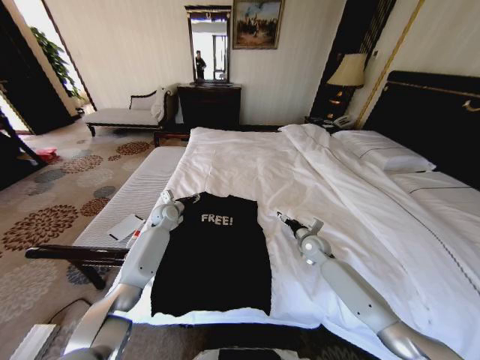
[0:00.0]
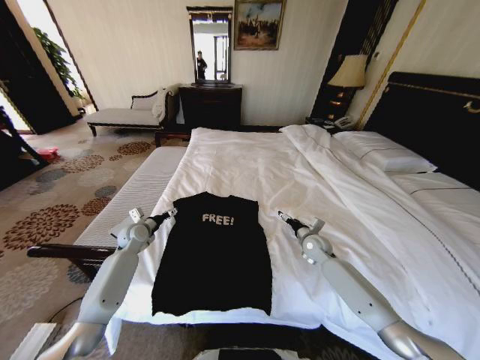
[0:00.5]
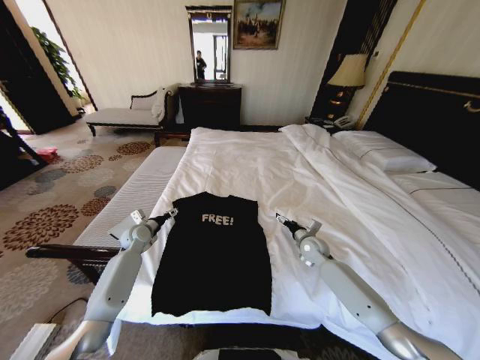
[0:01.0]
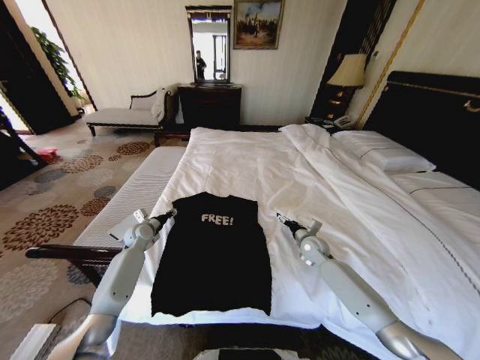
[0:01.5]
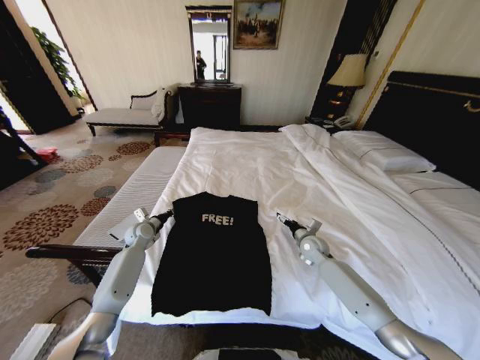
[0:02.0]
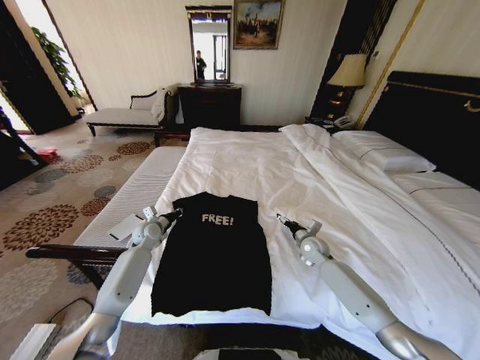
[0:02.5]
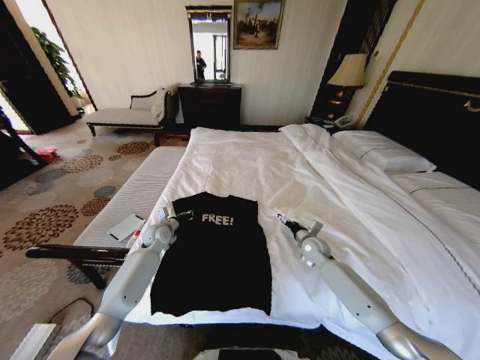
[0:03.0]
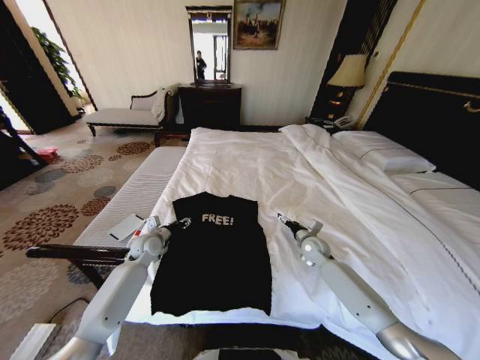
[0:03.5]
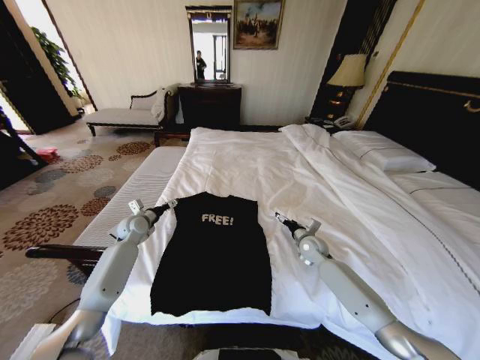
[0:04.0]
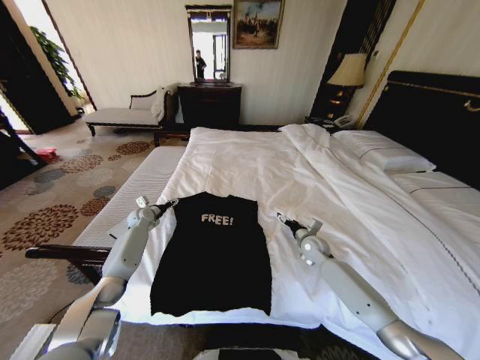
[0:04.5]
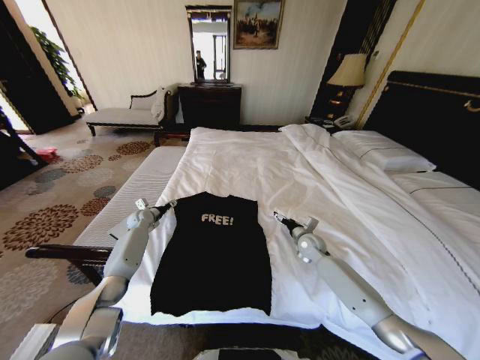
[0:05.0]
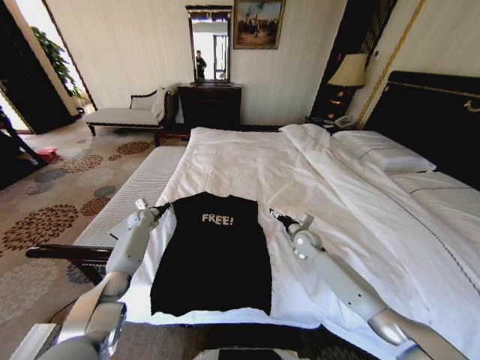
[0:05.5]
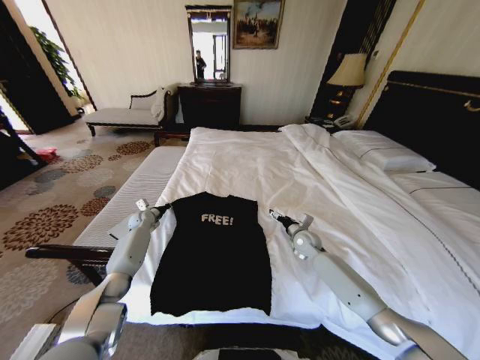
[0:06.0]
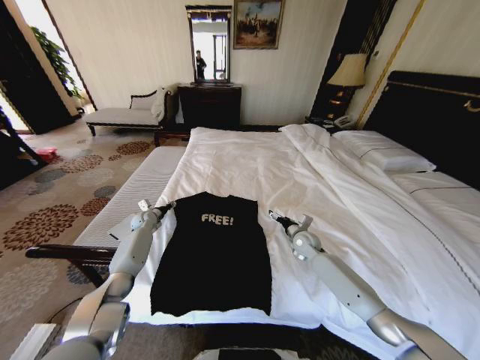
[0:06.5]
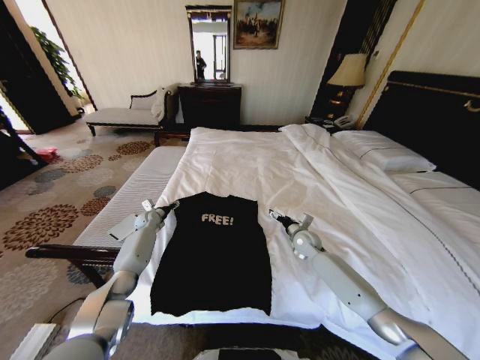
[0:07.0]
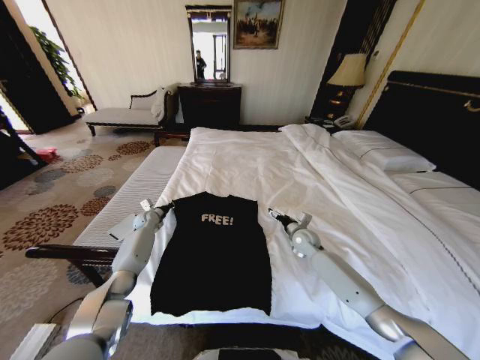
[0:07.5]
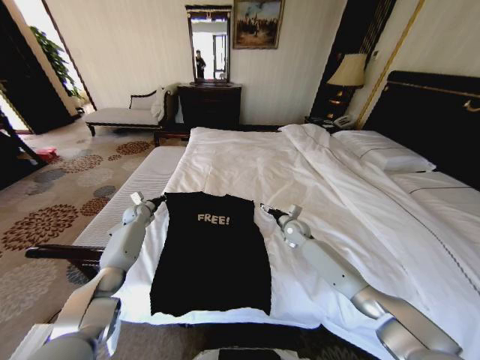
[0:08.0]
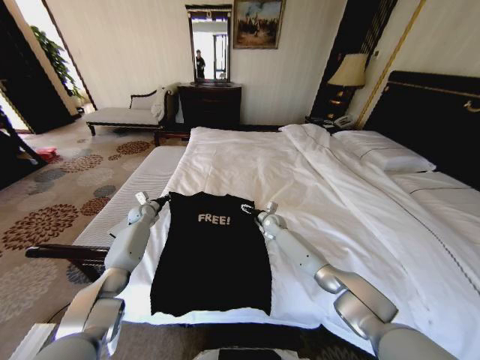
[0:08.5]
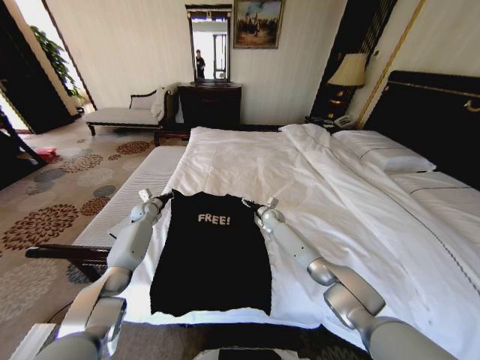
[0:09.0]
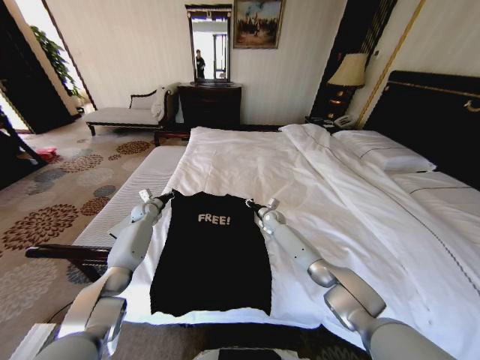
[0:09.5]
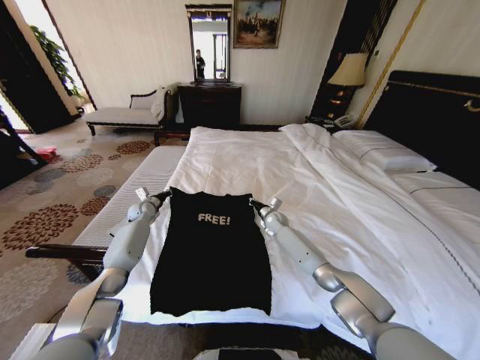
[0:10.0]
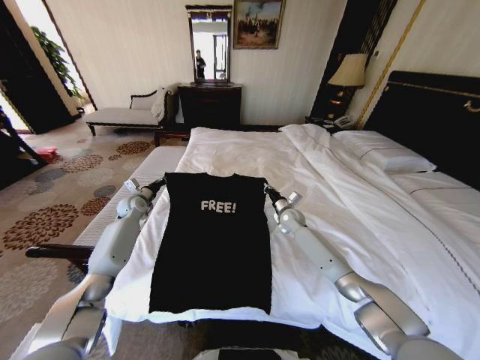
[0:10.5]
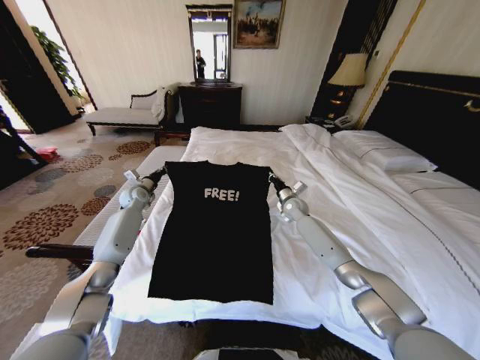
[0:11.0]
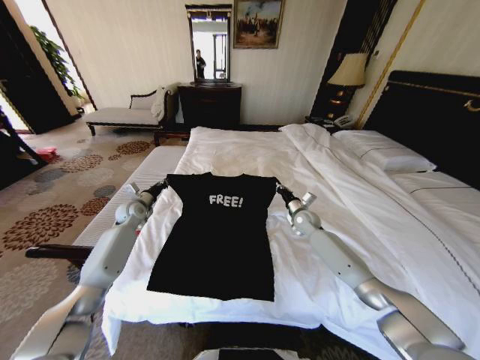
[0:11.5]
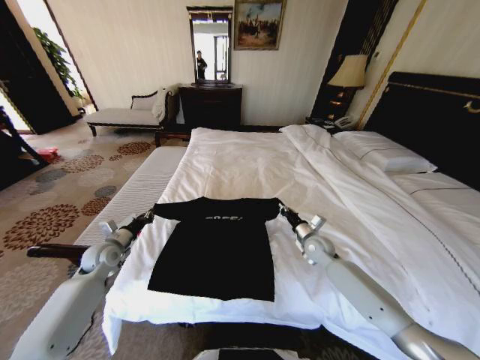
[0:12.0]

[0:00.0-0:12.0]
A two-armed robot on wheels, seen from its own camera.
Task of the whole recording: Fold the clothes on the bed.
0:00.0 to 0:02.0: The left gripper moves to the left and backward, some 10 cm, and closes.
0:02.0 to 0:04.0: The left gripper moves approximately 5 cm to the right and comes back, and opens its fingers.
0:04.0 to 0:06.0: The left gripper heads forward and downward, covering about 10 cm, and closes up.
0:06.0 to 0:08.0: The right gripper moves about 5 cm. Meanwhile the left gripper opens, then closes once more.
0:08.0 to 0:10.0: The right gripper goes about 10 cm forward and to the left, and closes.
0:10.0 to 0:12.0: The left gripper goes some 20 cm backward. Meanwhile the right gripper heads backward and to the right, covering roughly 20 cm.

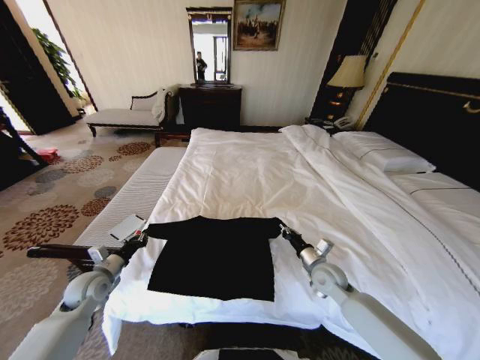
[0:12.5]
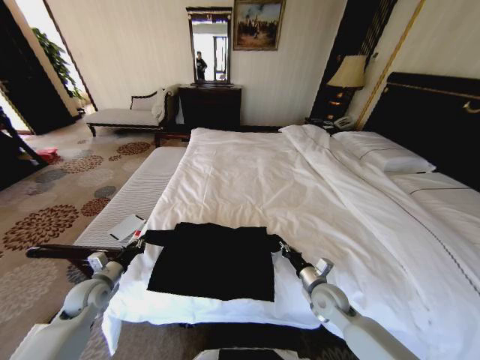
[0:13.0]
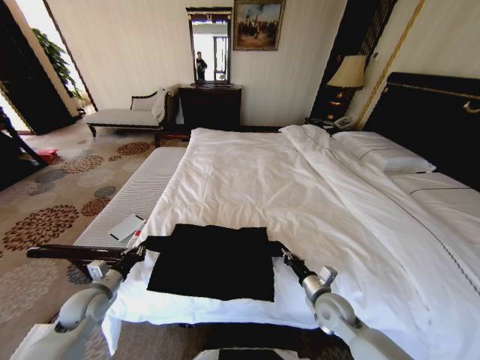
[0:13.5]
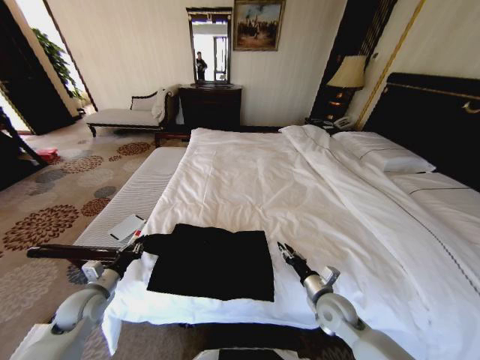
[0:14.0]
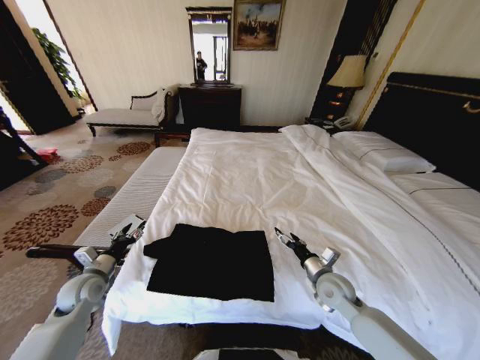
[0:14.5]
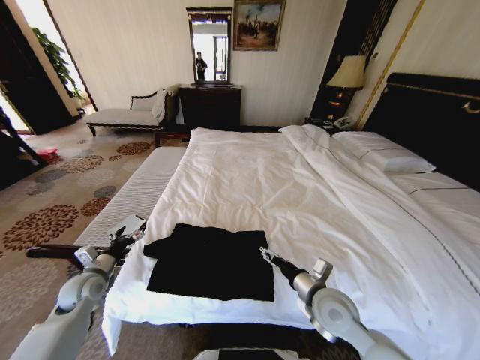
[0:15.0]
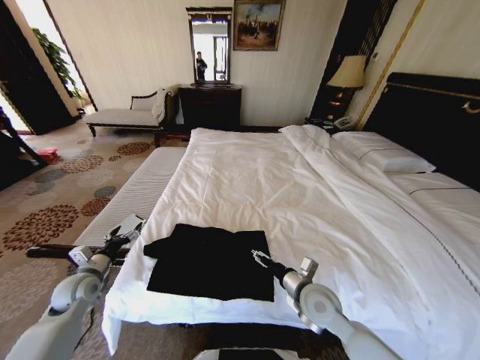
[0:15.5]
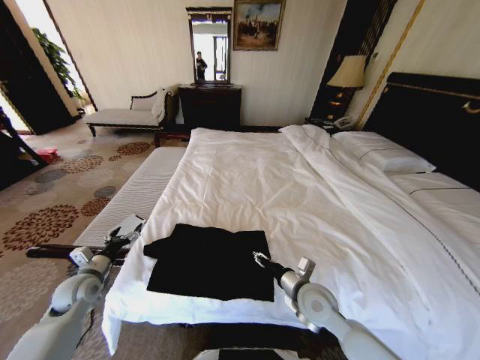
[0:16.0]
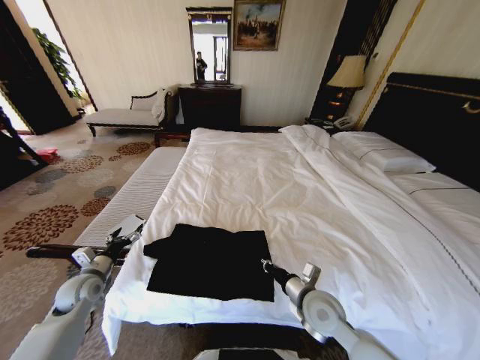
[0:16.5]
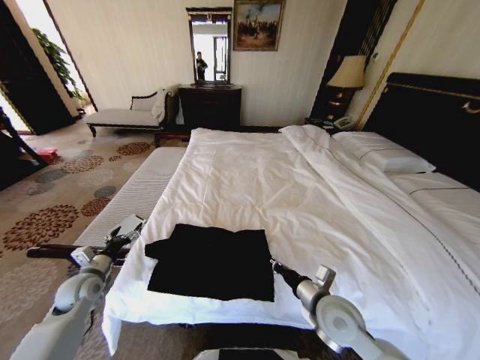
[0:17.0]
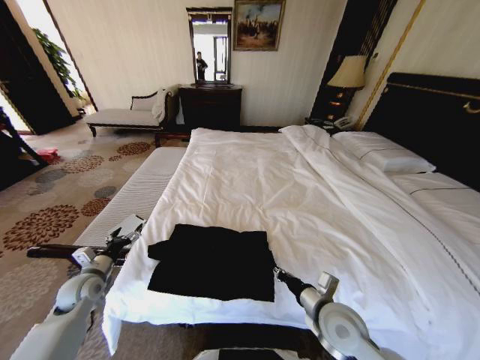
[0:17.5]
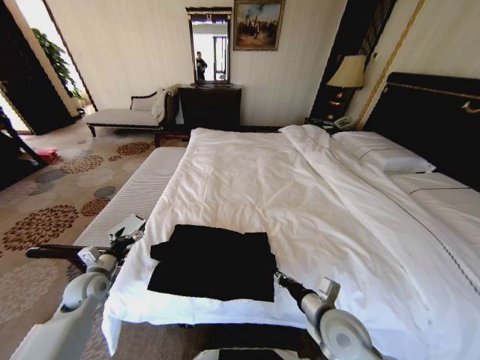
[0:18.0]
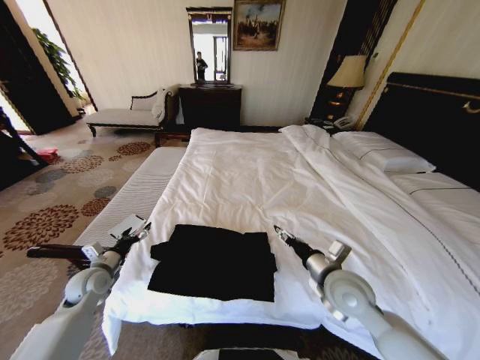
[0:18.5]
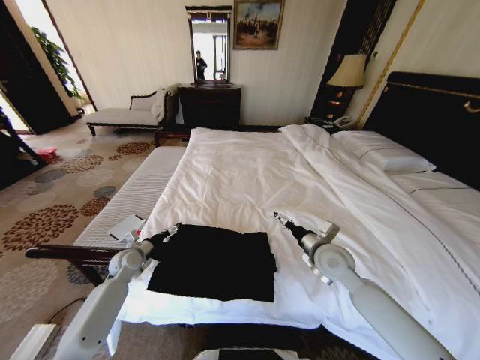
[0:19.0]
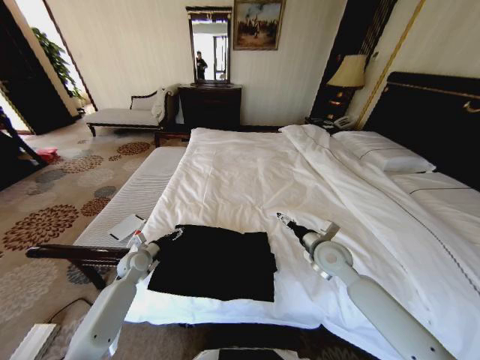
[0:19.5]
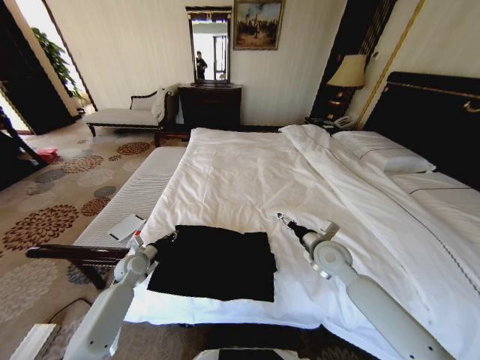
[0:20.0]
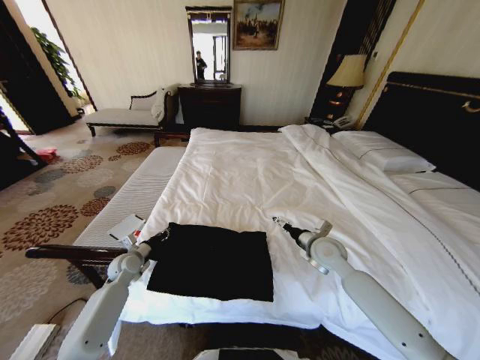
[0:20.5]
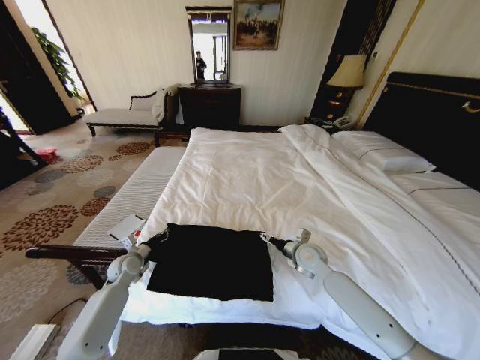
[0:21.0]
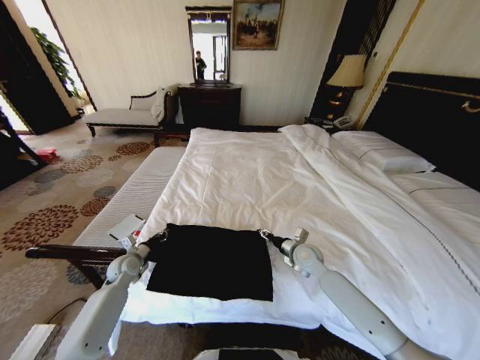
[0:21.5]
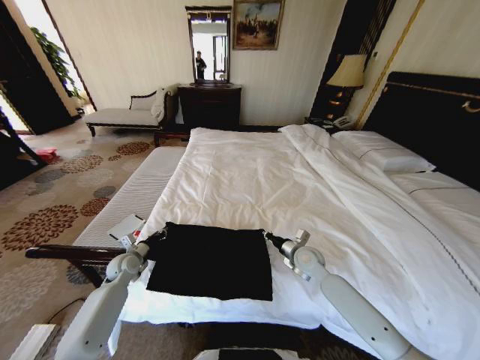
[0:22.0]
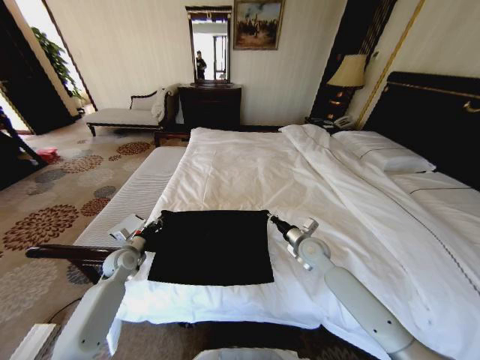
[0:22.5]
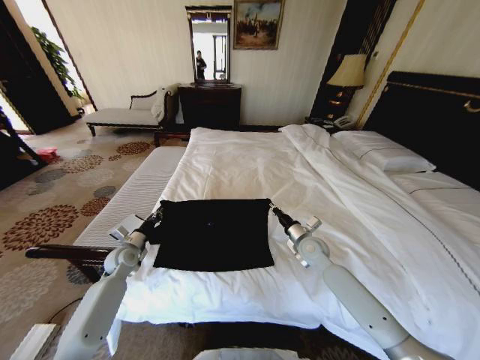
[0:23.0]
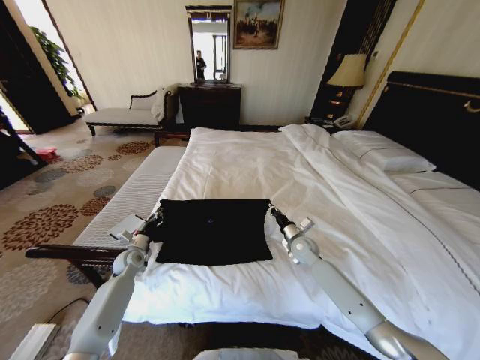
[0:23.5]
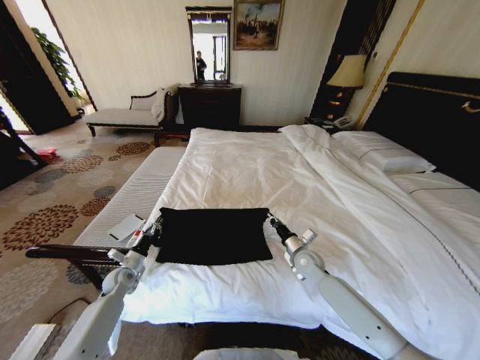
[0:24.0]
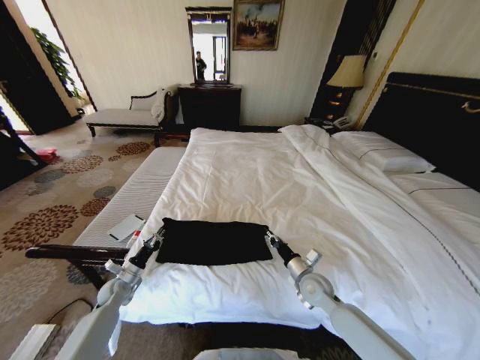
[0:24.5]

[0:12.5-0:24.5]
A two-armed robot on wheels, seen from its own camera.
Task of the whole recording: Fold the clothes on the bed.
0:12.5 to 0:14.5: The right gripper opens its fingers, while the left gripper opens up.
0:14.5 to 0:16.5: The left gripper opens its fingers. Meanwhile the right gripper is displaced to the left and backward by some 10 cm, and closes.
0:16.5 to 0:18.5: The right gripper moves upward, approximately 10 cm, and opens its fingers.
0:18.5 to 0:20.5: The right gripper heads forward, covering roughly 10 cm, and opens its fingers, while the left gripper is displaced forward and downward by some 10 cm, and closes its fingers.
0:20.5 to 0:22.5: The right gripper closes up.
0:22.5 to 0:24.5: The left gripper goes about 10 cm downward and backward. The right gripper shifts roughly 10 cm backward and downward.

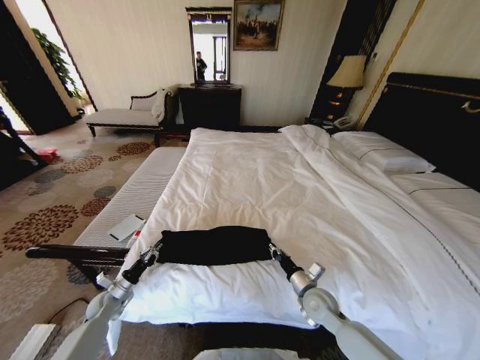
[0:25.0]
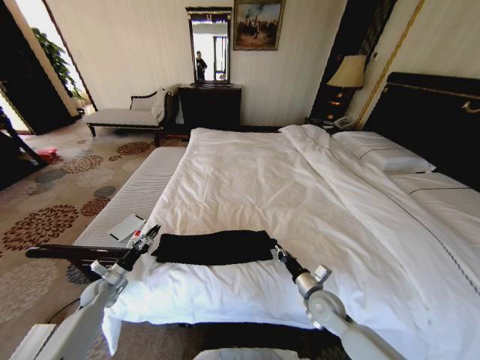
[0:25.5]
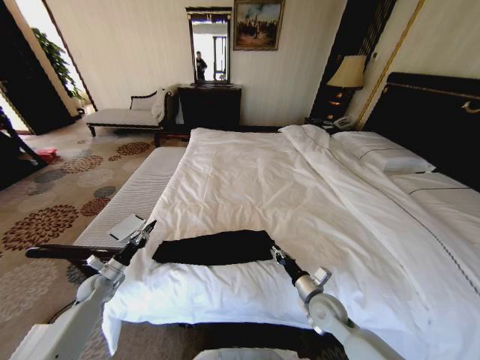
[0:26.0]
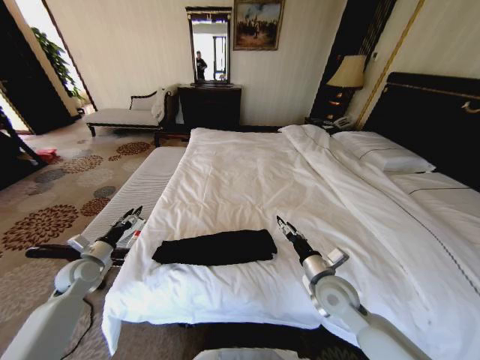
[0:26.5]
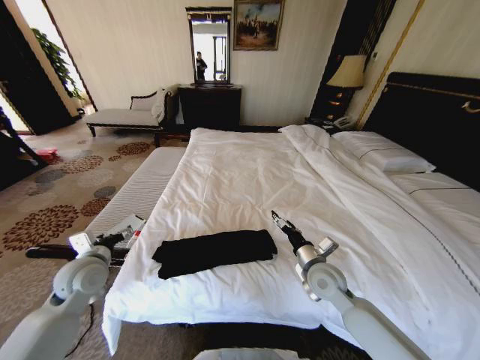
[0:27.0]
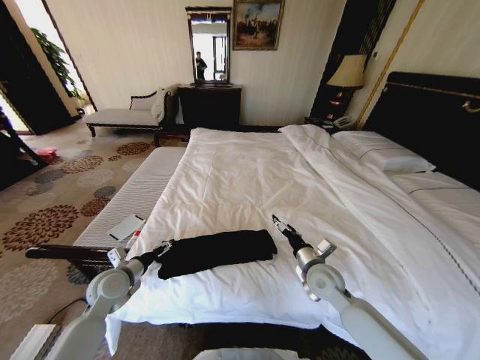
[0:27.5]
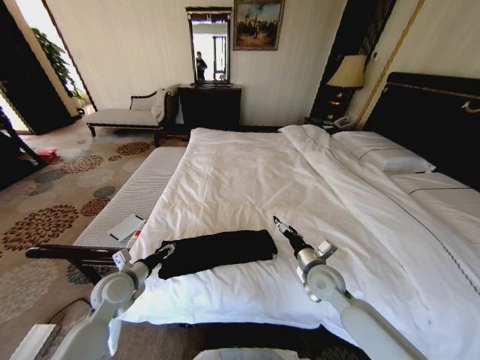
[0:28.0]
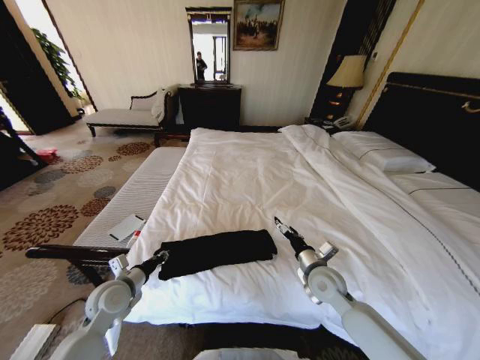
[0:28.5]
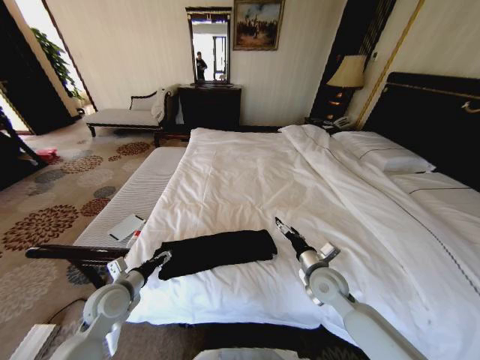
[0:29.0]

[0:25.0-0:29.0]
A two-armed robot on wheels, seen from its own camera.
Task of the whole recording: Fold the clothes on the bed.
0:25.0 to 0:27.0: The left gripper shifts about 25 cm upward, and opens its fingers, while the right gripper heads upward, covering approximately 10 cm, and opens up.
0:27.0 to 0:29.0: The left gripper is displaced downward by some 10 cm, and closes, then opens again.
